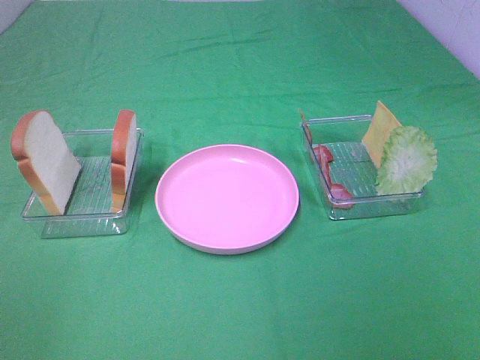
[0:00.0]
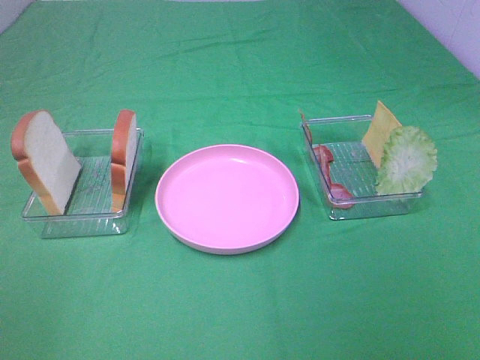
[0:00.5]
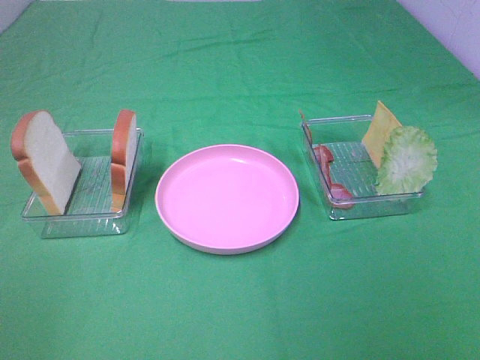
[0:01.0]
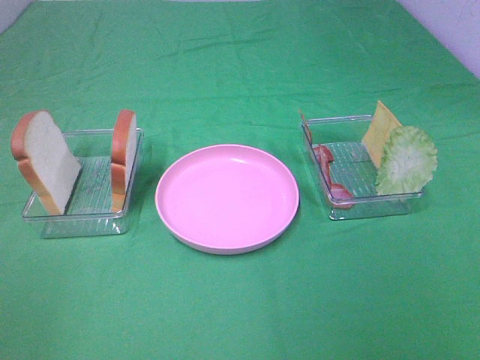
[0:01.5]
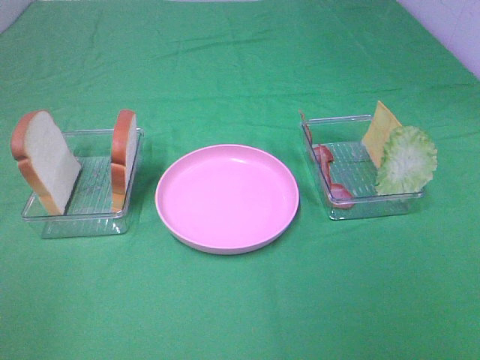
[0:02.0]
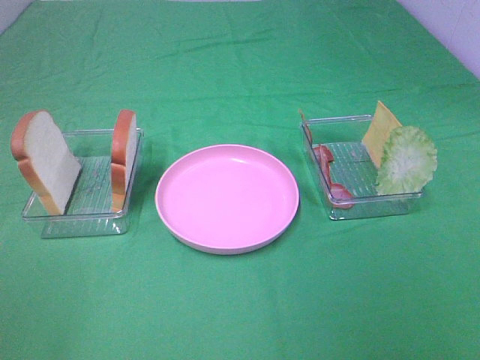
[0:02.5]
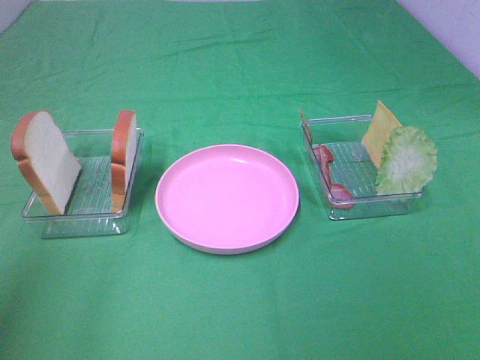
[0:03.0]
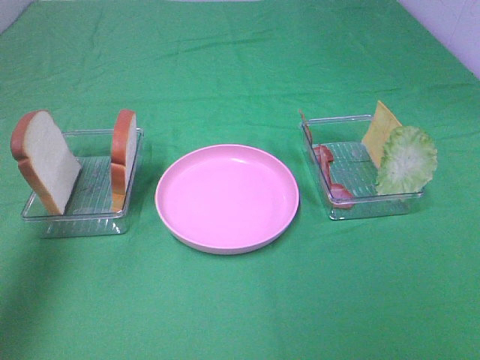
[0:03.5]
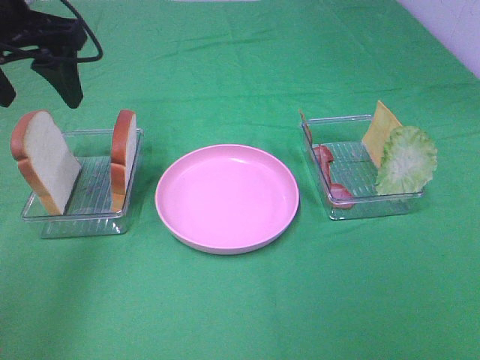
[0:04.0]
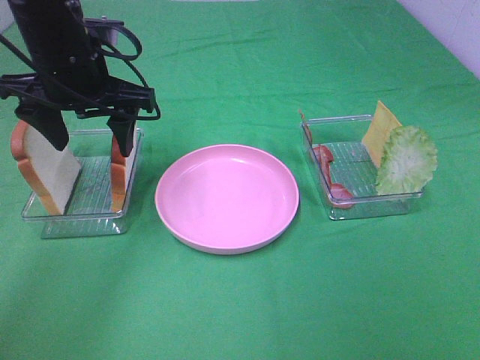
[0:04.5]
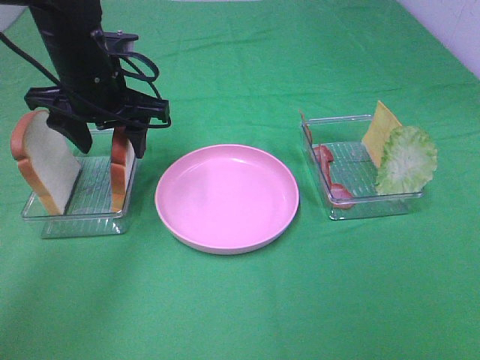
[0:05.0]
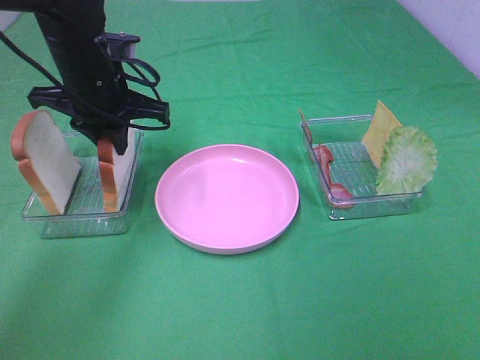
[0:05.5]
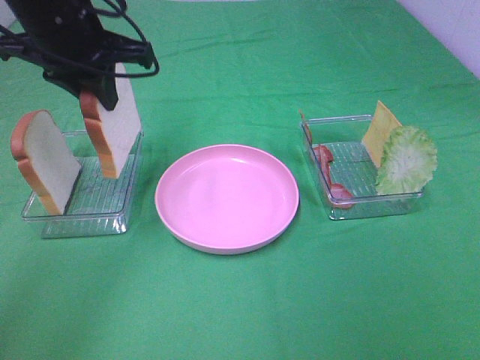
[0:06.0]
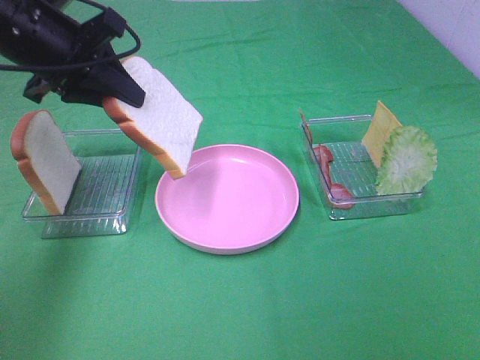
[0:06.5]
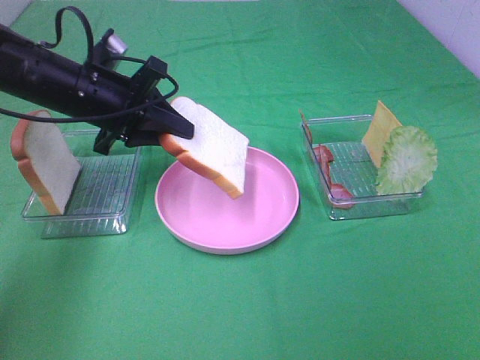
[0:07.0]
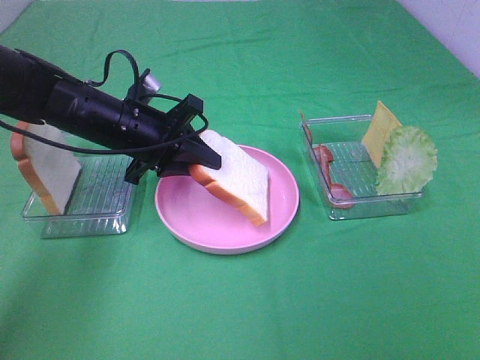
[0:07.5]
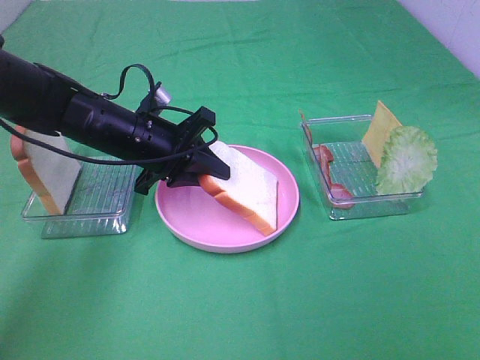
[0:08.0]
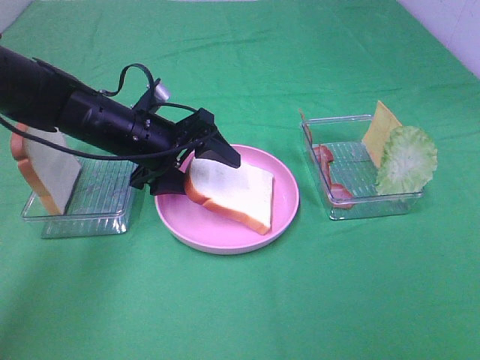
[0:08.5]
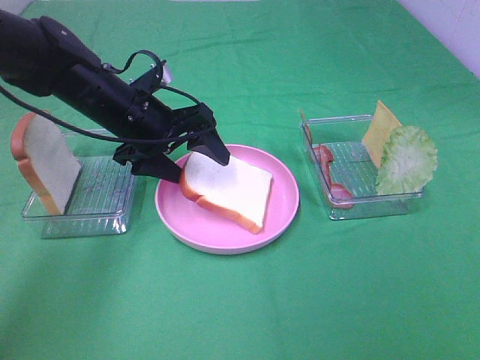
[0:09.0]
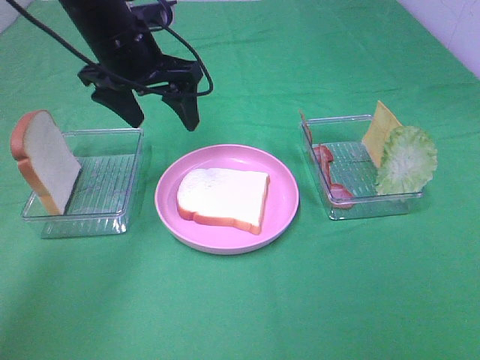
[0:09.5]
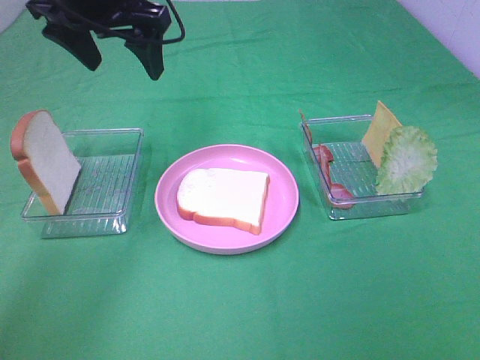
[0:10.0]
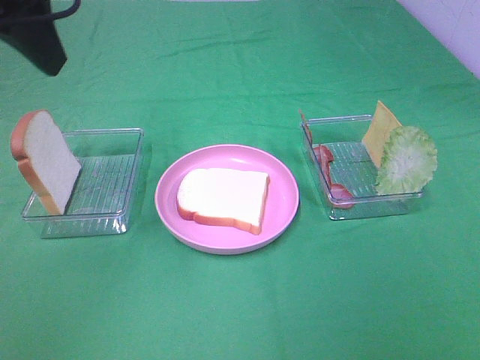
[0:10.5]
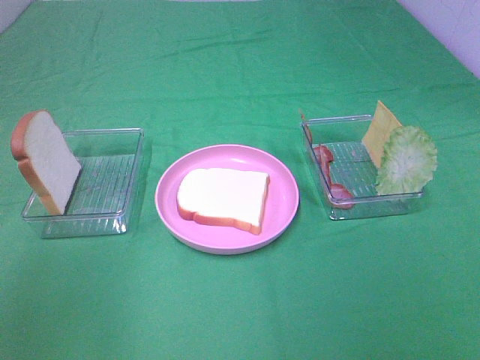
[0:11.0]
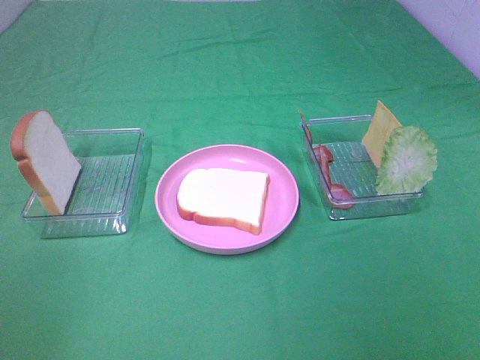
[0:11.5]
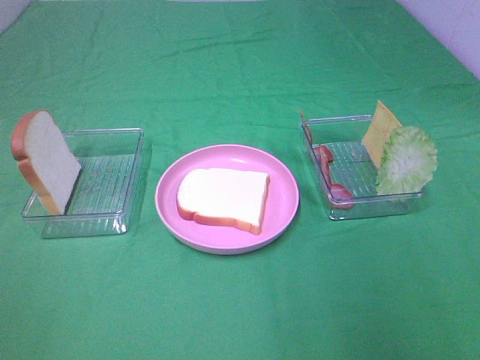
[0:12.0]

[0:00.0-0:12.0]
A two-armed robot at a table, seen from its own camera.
Task of the whole recording: Make sandwiches.
Step, 0:00.0 to 0:05.5: Left hand:grab the bread slice.
Step, 0:06.0 to 0:09.0: Left hand:place the bread slice on the plate.
0:00.0 to 0:02.0: The two grippers keep their place.
0:02.0 to 0:04.0: The left gripper heads forward, covering roughly 35 cm.
0:04.0 to 0:06.0: The left gripper goes downward and returns, approximately 10 cm each way, and closes up.
0:06.0 to 0:08.0: The left gripper heads downward, covering approximately 15 cm.
0:08.0 to 0:10.0: The left gripper heads upward, covering approximately 20 cm, and opens its fingers.
0:10.0 to 0:12.0: The left gripper heads backward and to the left, covering roughly 40 cm; the right gripper shifts approximately 10 cm forward.

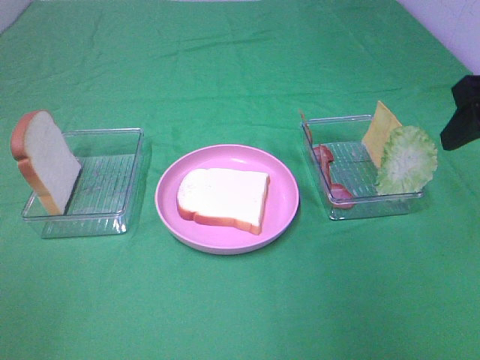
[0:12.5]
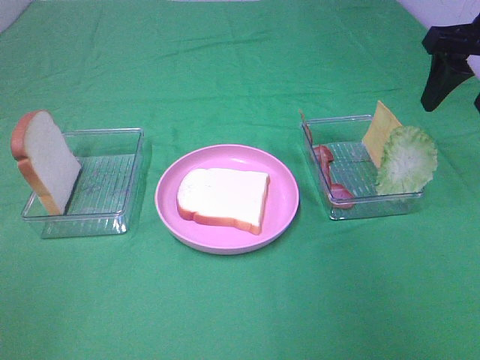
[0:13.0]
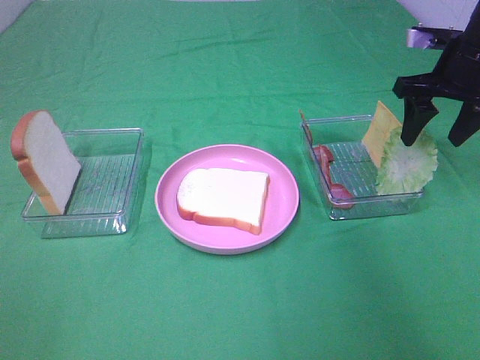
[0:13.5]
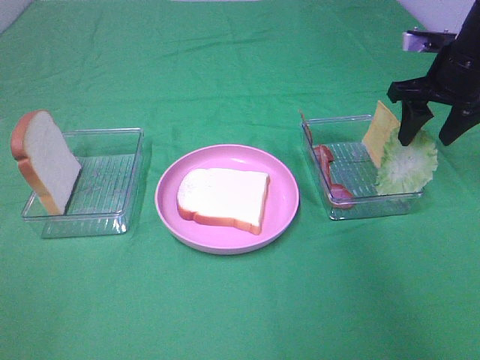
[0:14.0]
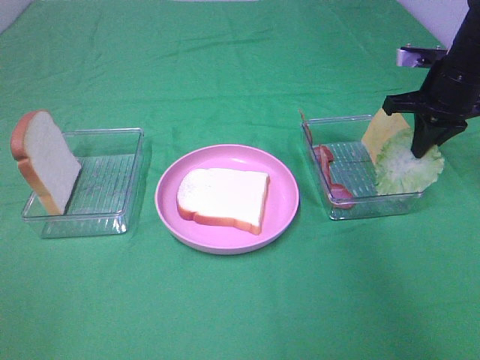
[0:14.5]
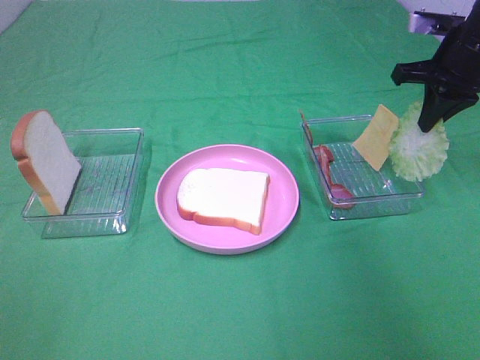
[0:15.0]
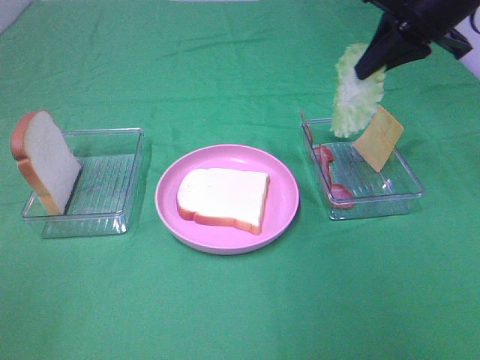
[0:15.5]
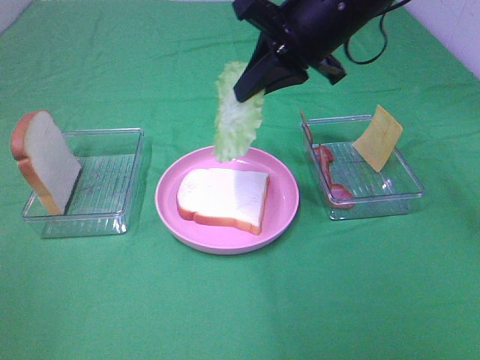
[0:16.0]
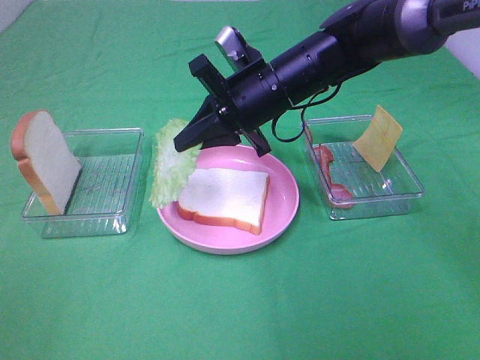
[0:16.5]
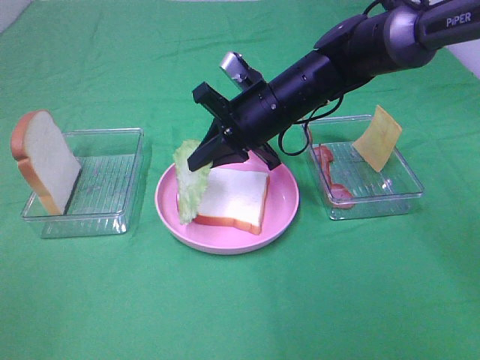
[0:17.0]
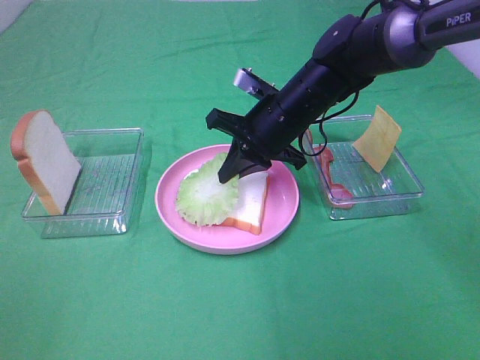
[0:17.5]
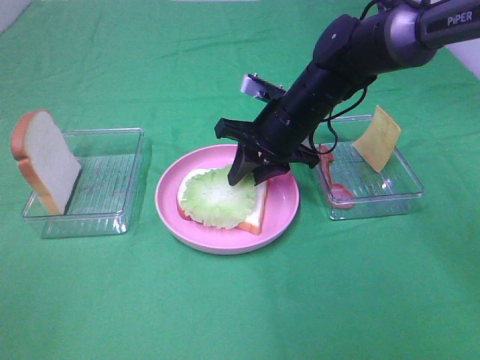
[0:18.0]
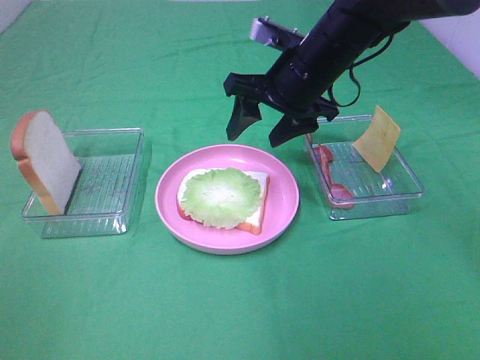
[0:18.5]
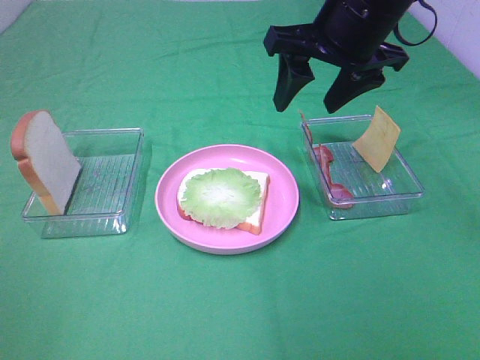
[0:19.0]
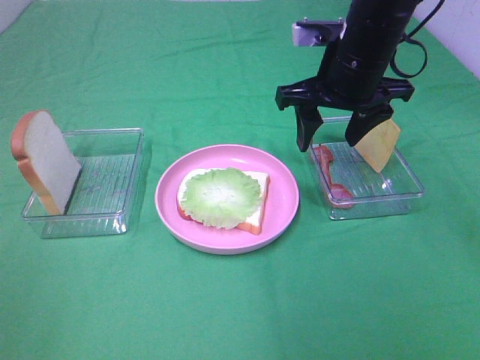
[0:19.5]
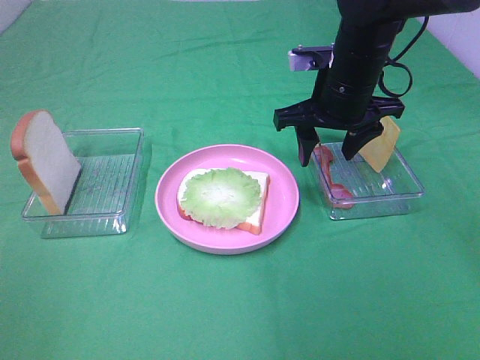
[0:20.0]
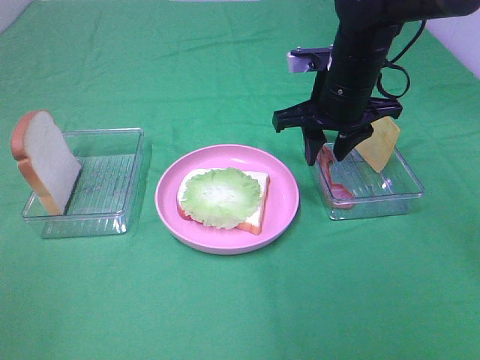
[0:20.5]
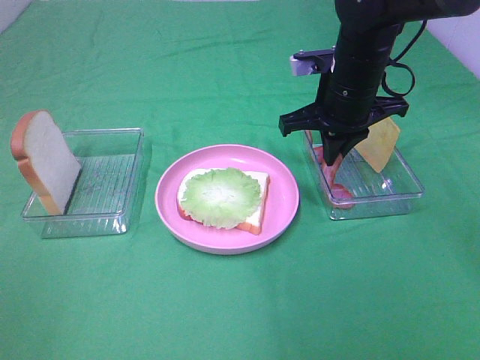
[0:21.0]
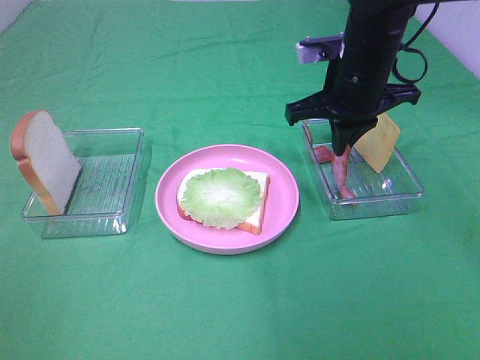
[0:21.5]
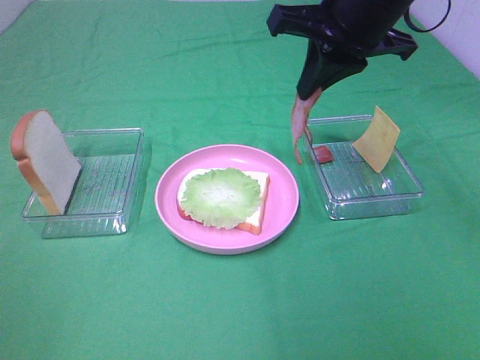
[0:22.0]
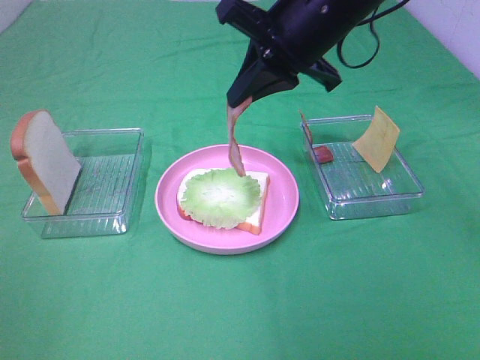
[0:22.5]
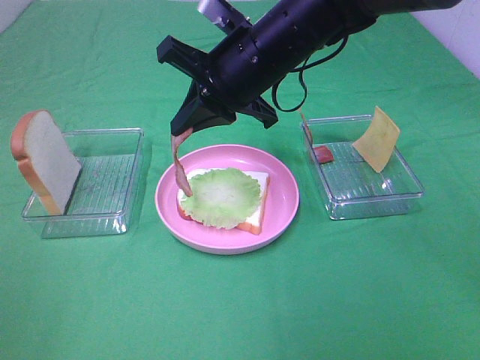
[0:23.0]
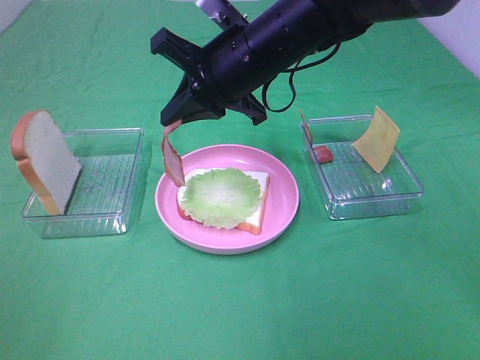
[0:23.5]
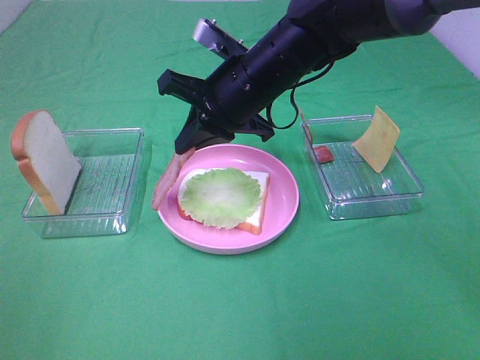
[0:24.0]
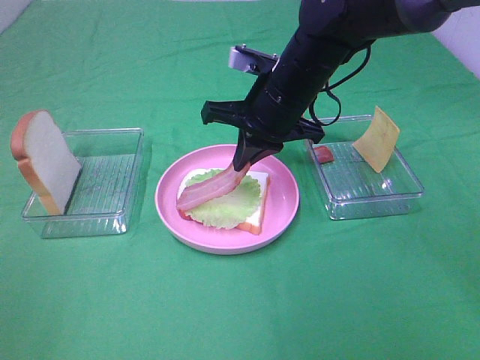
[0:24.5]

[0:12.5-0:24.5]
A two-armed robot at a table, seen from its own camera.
Task of the whole recording: Make sandwiches.
Step, 0:18.5 to 0:21.0: Right hand:grab the bacon.
0:12.5 to 0:14.5: The right gripper moves forward and downward, roughly 20 cm, and closes.
0:14.5 to 0:16.5: The right gripper travels to the left by roughly 25 cm.
0:16.5 to 0:18.5: The right gripper moves approximately 5 cm, and opens up.
0:18.5 to 0:20.5: The right gripper travels upward and back again, roughly 10 cm each way.
0:20.5 to 0:22.5: The right gripper is displaced upward by approximately 10 cm, and closes up.
0:22.5 to 0:24.5: The right gripper shifts some 10 cm downward.

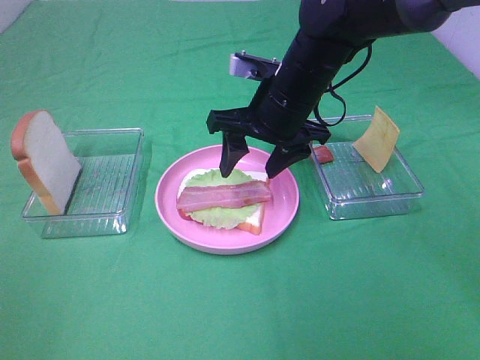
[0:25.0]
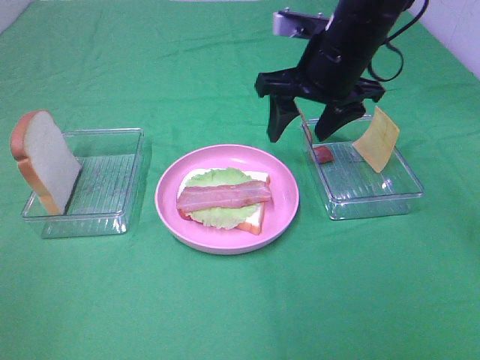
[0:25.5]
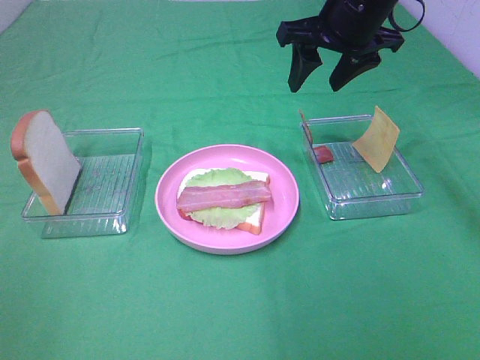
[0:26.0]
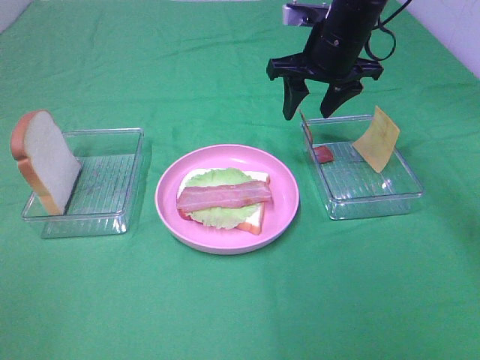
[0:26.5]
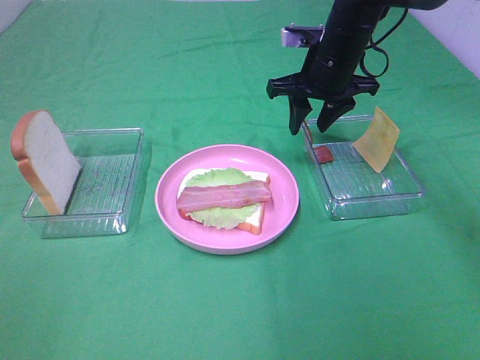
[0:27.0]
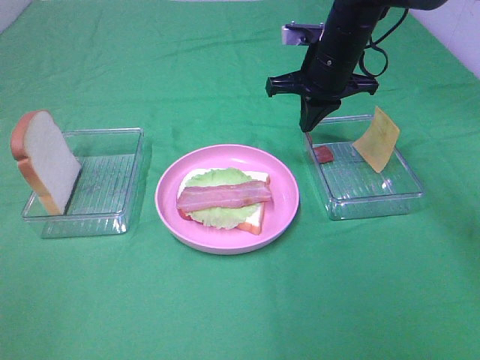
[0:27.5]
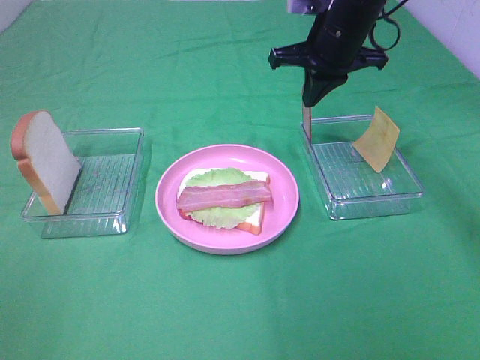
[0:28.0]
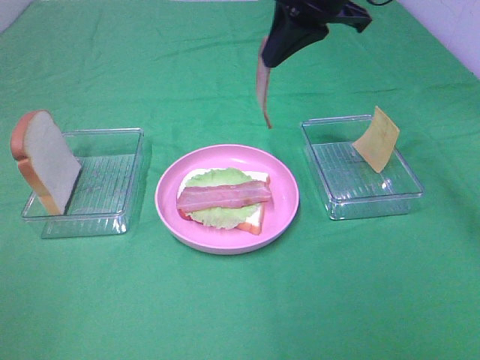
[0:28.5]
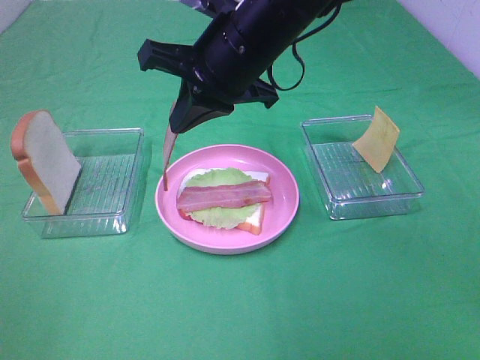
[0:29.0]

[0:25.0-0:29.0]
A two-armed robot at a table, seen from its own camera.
Task of the whole recording: Make sandwiches.
Step, 0:25.0 to 0:28.0: Right hand:grab the bacon.
0:25.0 to 0:27.0: The right gripper heads forward and to the right, covering roughly 10 cm.
0:27.0 to 0:29.0: The right gripper goes roughly 20 cm backward, to the left and upward, and closes.
